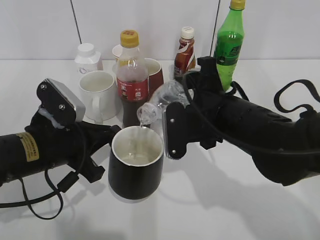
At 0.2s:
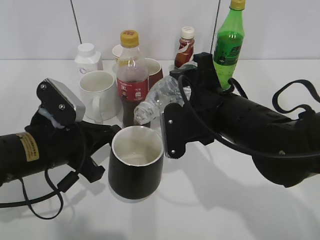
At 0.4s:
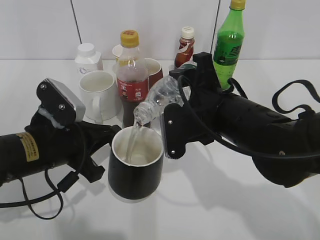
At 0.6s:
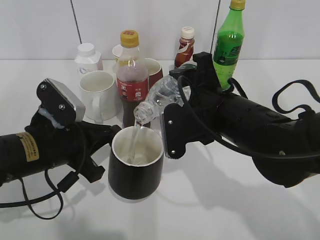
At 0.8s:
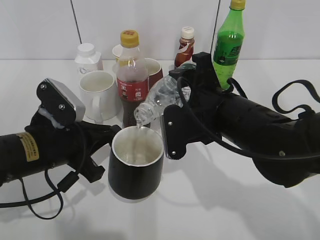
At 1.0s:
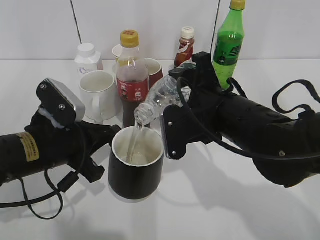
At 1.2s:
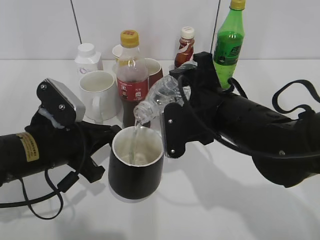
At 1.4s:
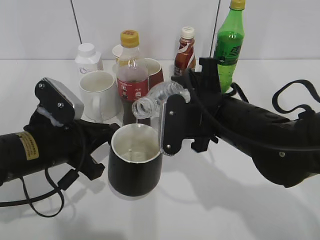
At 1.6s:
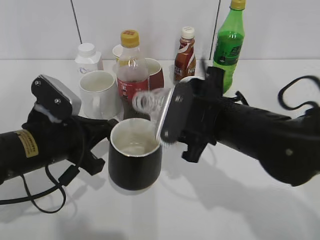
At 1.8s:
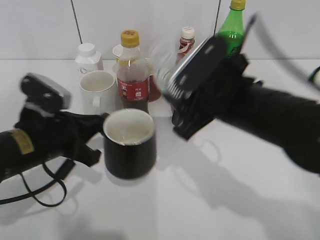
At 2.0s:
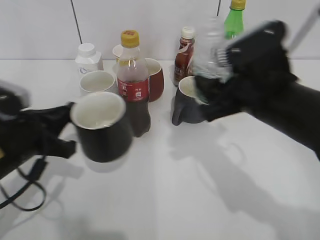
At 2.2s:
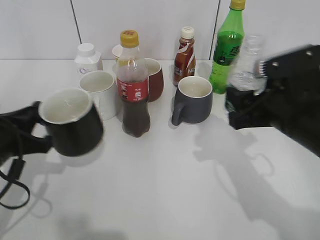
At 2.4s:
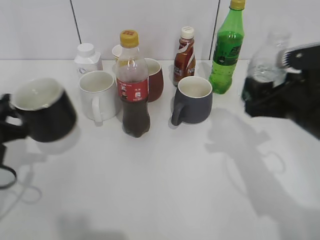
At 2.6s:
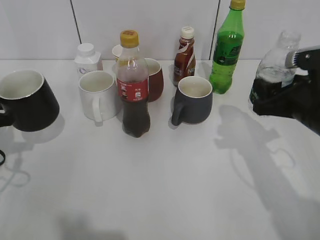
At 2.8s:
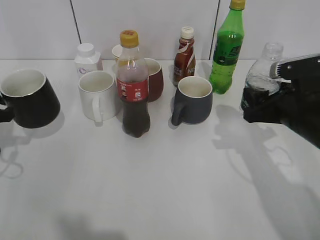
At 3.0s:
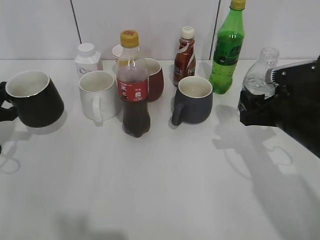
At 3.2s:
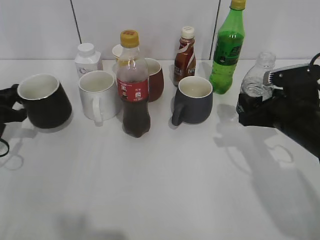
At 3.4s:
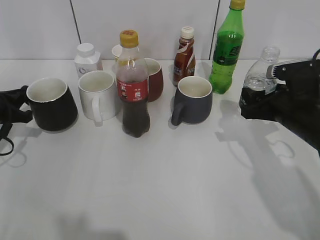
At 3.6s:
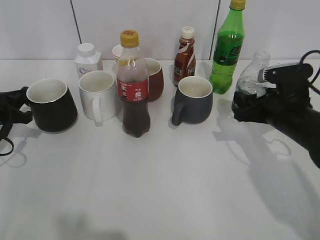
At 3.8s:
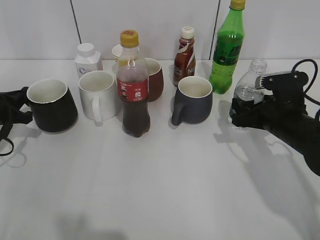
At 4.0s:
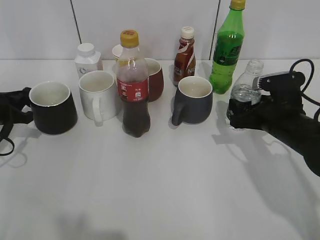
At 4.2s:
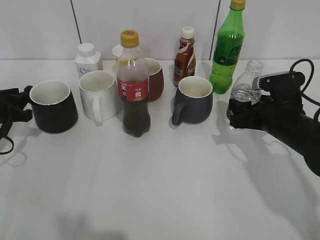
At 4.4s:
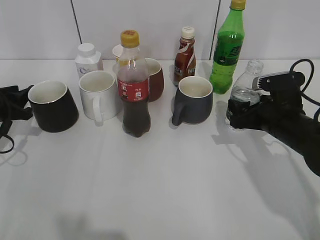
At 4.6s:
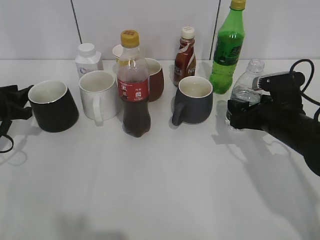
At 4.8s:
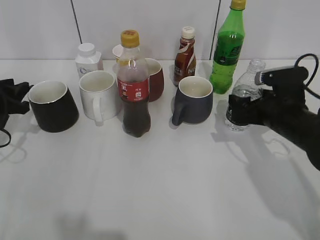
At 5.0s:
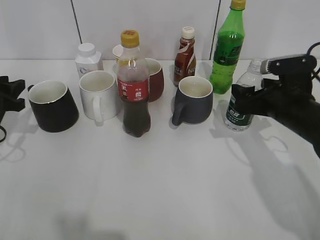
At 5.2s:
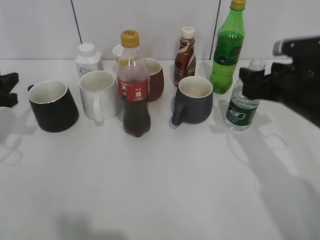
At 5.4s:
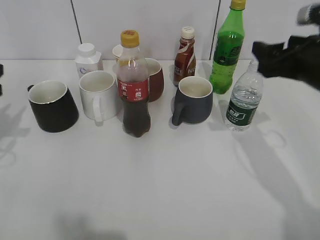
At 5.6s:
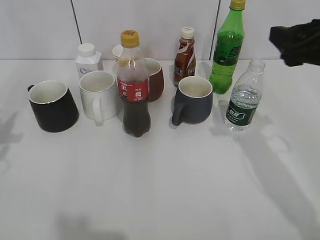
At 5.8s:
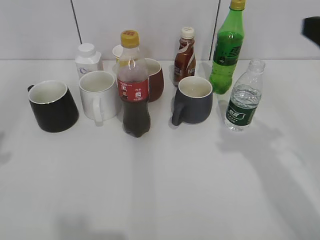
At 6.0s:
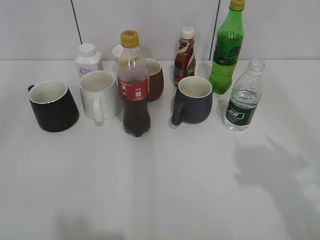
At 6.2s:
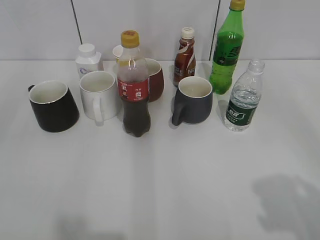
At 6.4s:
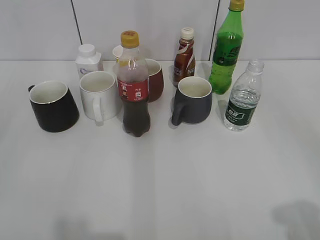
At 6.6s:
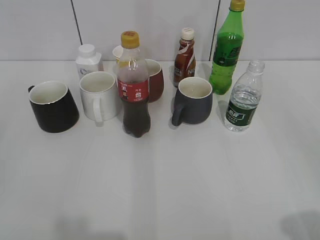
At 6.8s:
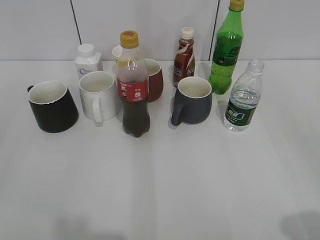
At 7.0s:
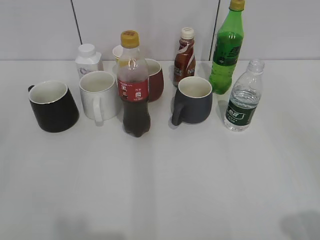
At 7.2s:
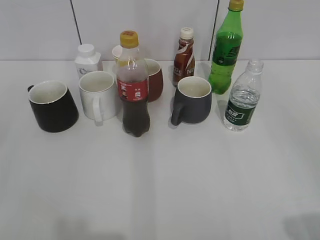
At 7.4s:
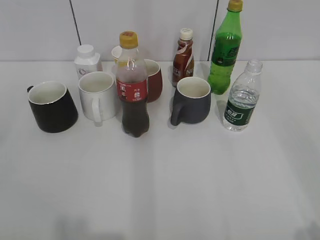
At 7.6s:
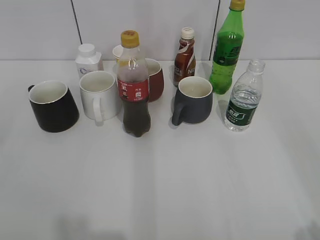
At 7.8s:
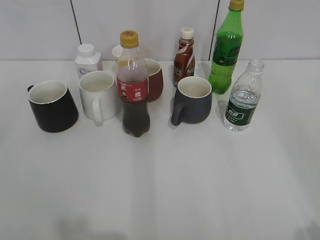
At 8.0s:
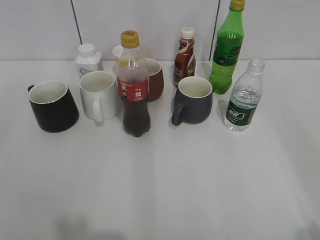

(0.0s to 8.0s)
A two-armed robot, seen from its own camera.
Step, 1.8s - 4.8s: Place the black cup on the table with left gripper.
1.6s - 3.2s: The left gripper travels to the left and forward by approximately 20 cm. Meanwhile the right gripper heads to the right, covering about 15 cm.
3.2s - 4.8s: The left gripper opens up, while the right gripper opens its fingers.
4.8s - 6.4s: Both grippers move backward and upward, some 35 cm. The left gripper opens up.

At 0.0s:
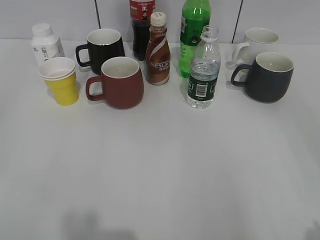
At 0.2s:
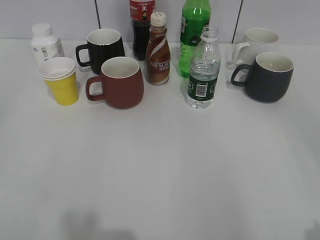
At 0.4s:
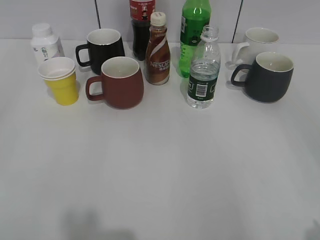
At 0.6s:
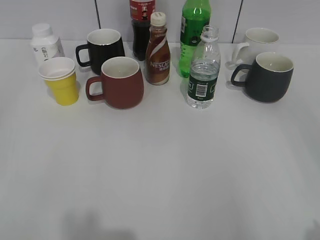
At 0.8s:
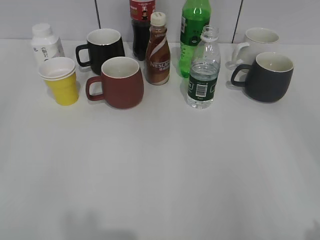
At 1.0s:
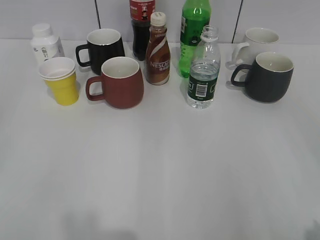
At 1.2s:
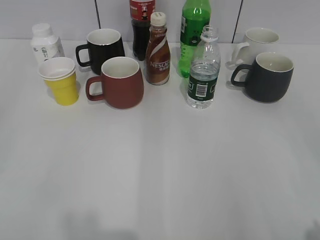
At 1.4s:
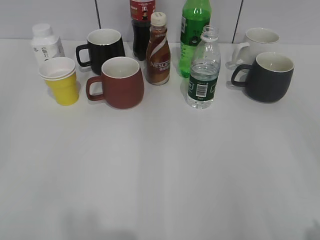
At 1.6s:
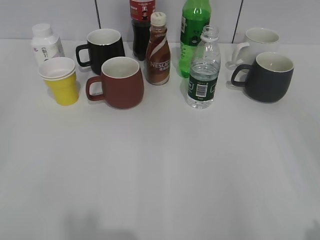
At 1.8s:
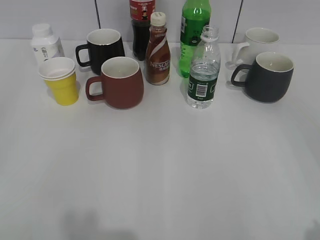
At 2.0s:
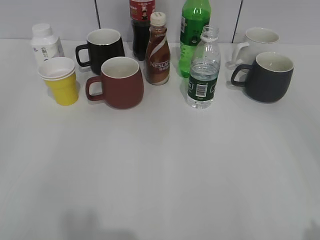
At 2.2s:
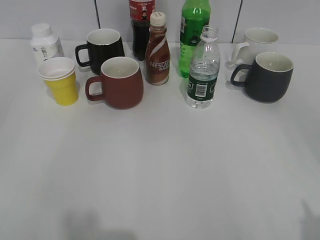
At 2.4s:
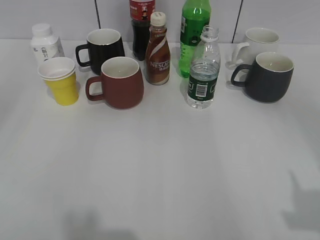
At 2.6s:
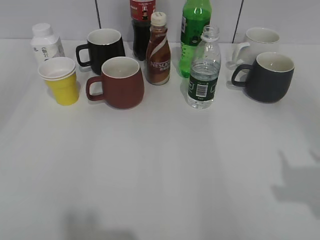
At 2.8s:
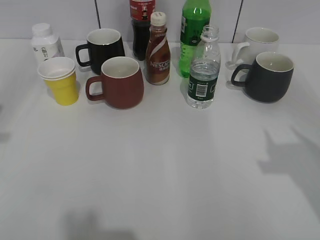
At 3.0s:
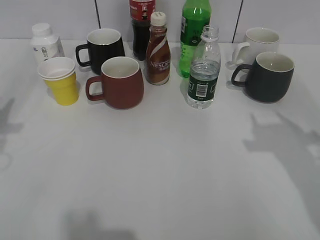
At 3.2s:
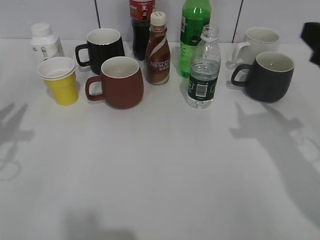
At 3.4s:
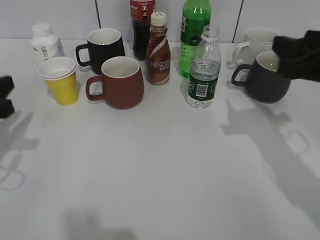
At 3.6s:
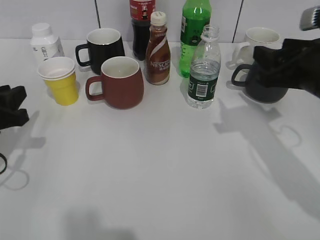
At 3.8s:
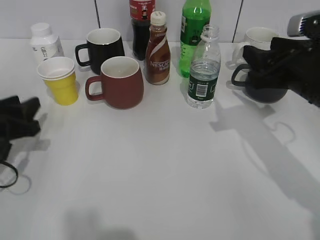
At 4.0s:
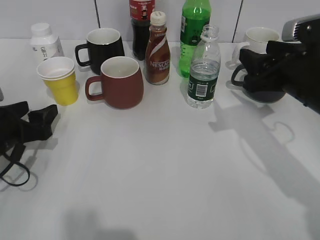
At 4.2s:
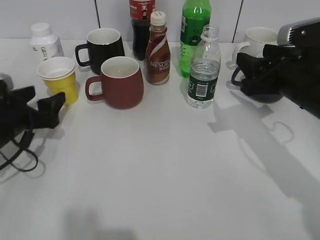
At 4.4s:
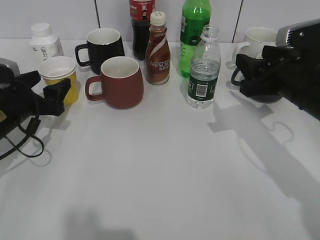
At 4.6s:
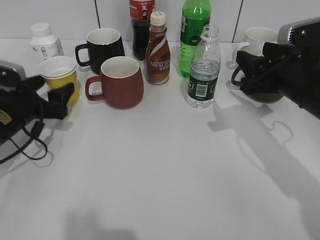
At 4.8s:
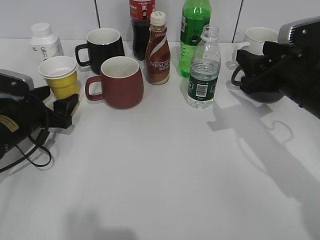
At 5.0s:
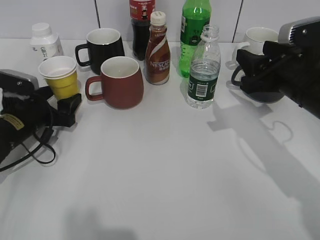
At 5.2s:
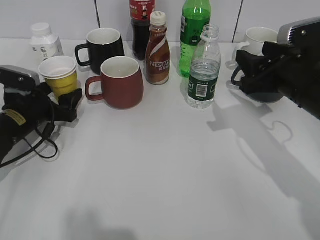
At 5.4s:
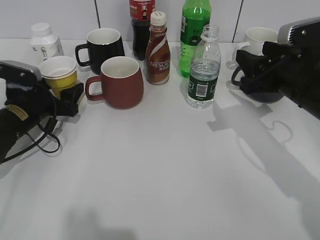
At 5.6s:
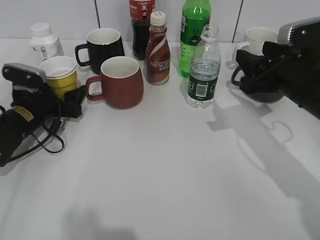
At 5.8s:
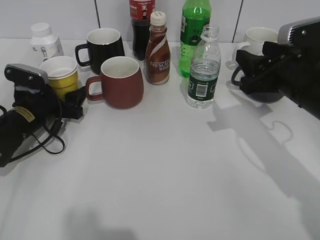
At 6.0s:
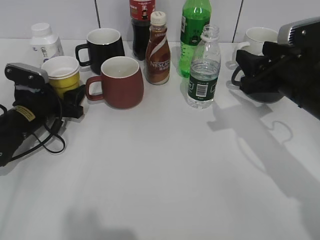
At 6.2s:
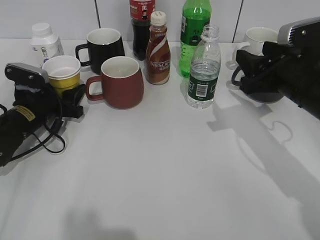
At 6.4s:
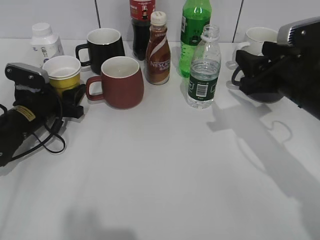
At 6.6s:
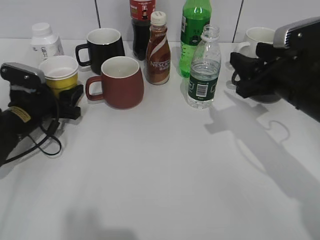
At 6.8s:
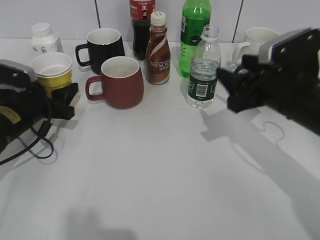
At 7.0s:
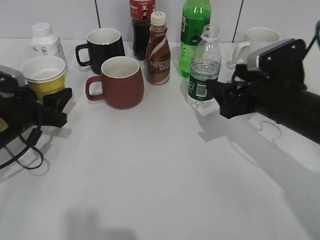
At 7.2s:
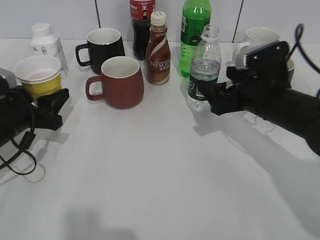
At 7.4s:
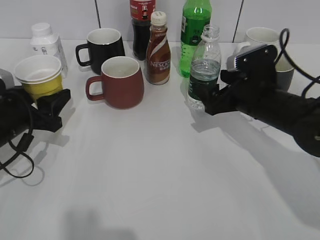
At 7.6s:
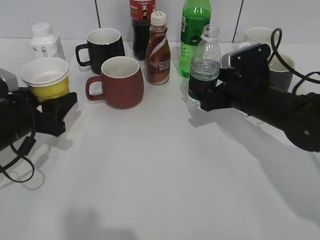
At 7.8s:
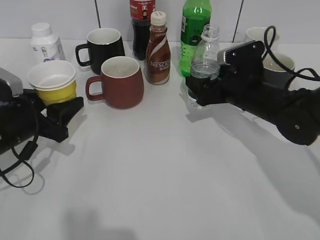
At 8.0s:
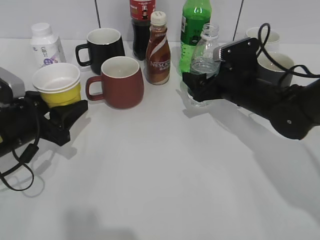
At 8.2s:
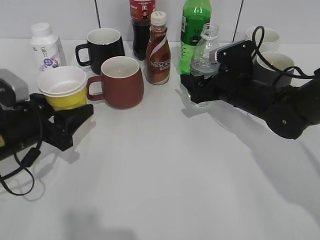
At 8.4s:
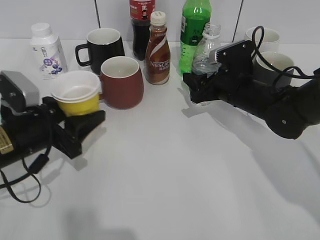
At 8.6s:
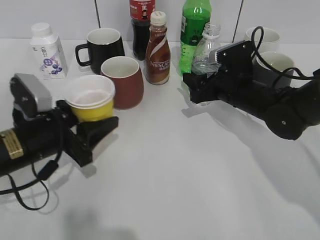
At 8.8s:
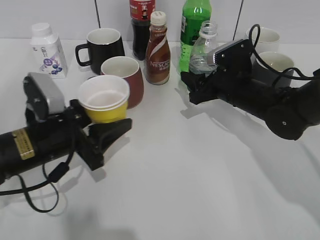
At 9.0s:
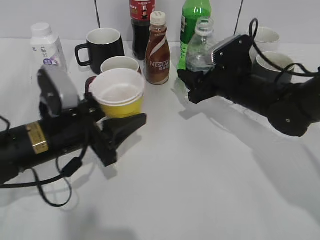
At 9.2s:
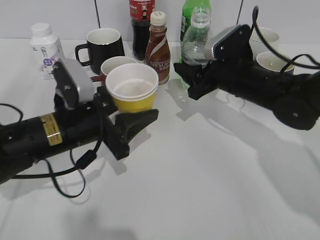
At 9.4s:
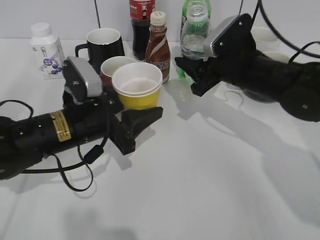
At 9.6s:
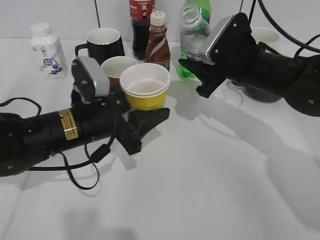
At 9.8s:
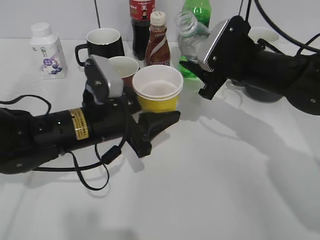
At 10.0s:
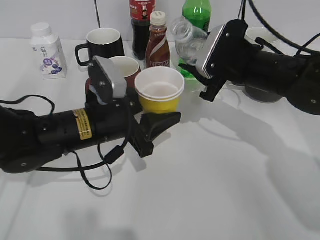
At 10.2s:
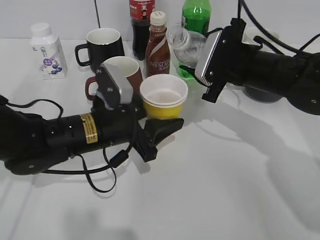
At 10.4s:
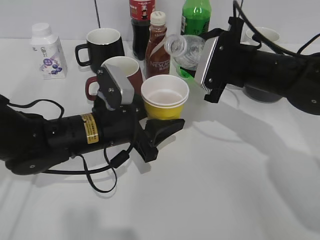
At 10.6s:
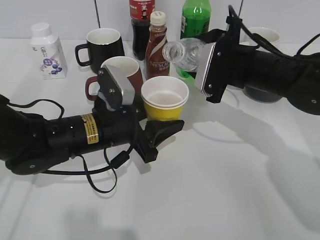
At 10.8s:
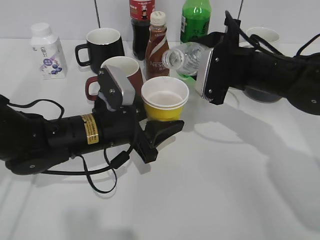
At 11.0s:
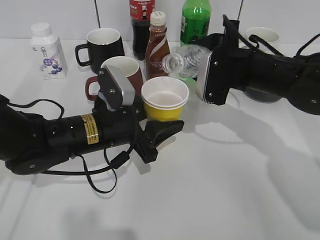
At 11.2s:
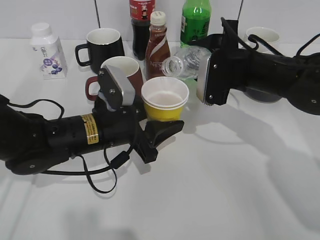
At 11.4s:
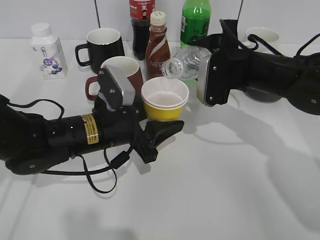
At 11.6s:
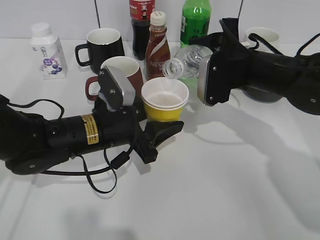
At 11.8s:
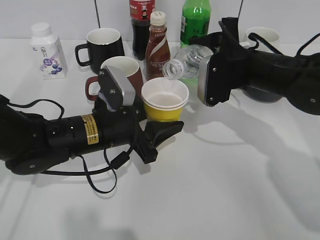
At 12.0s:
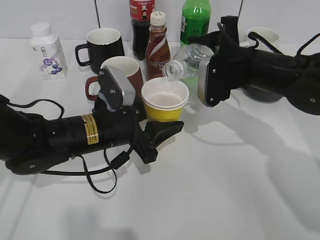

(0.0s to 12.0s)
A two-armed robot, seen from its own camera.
Step, 0.0s - 6.0s: Grasp the yellow paper cup with left gripper.
Step, 6.4s - 6.8s: Grasp the bottle with water with right gripper.
Step, 7.2s - 8.6s: Lift the yellow paper cup with left gripper.
1.6s - 3.0s: The right gripper travels forward by about 15 cm.
3.0s - 4.4s: The right gripper travels downward, forward and to the left by approximately 15 cm, while the left gripper travels downward and forward by approximately 20 cm, and opens up.
4.4s - 6.0s: The left gripper heads forward, covering about 5 cm.
6.0s - 7.6s: The right gripper shifts some 10 cm downward and forward, and opens. The left gripper heads backward, covering about 10 cm.
7.6s - 9.0s: The left gripper heads to the right, covering approximately 10 cm; the right gripper closes its fingers.
9.0s - 10.4s: The right gripper is displaced upward by some 5 cm. Meanwhile the left gripper travels to the right by roughly 5 cm.

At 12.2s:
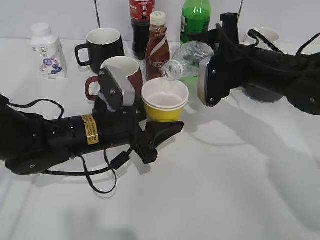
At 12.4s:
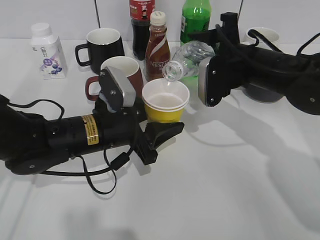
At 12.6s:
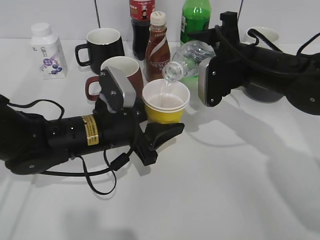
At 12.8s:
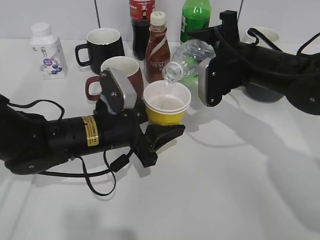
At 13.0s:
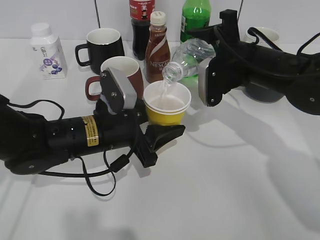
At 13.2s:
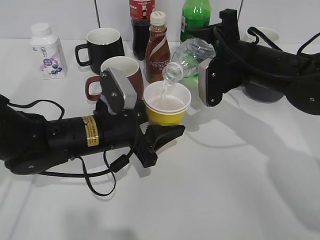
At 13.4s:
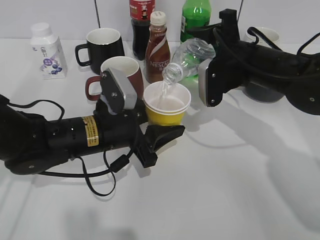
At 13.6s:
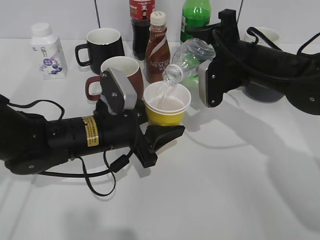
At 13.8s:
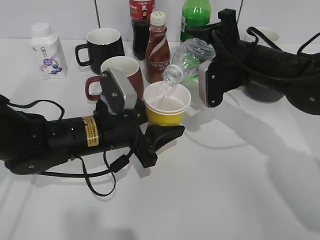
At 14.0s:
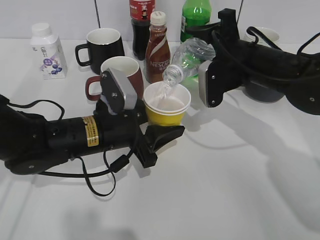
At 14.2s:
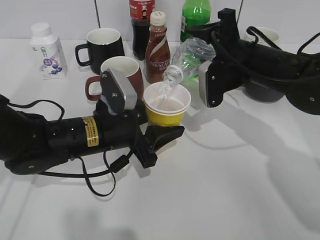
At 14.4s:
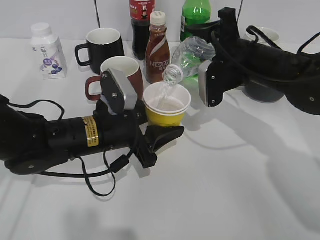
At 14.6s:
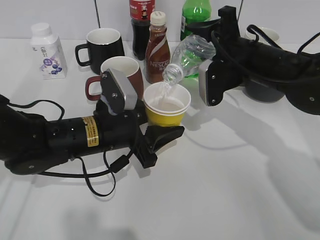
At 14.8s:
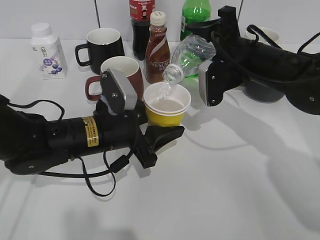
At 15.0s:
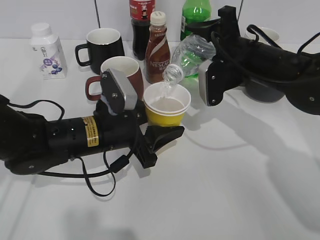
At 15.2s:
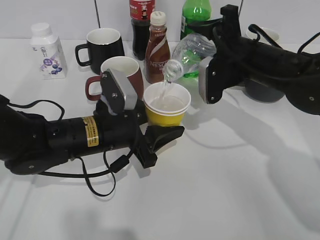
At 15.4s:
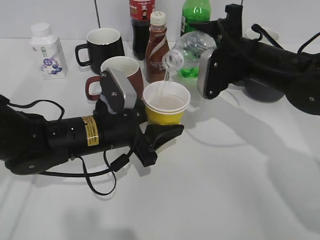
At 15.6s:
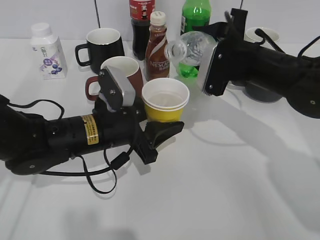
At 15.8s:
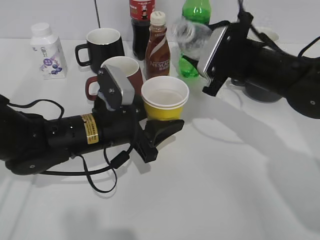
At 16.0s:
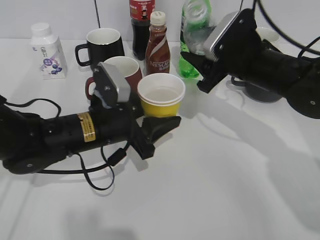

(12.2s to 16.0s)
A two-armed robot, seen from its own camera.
Step, 12.2s - 15.8s: Pour the water from bottle to cup with right gripper.
12.2s - 14.8s: The grippers move only a little.
